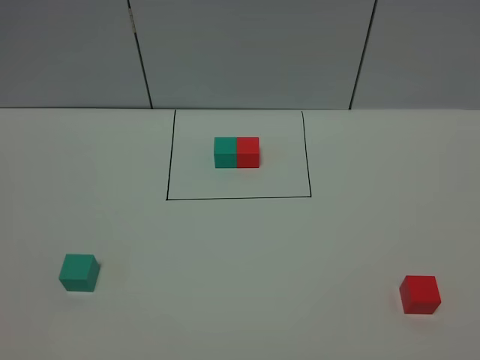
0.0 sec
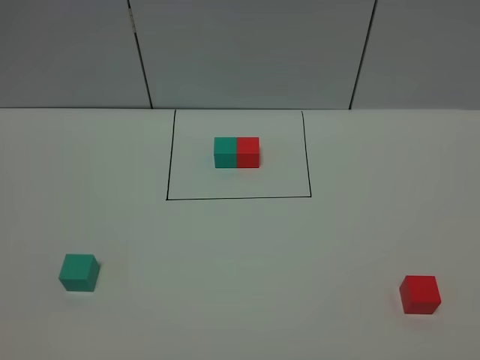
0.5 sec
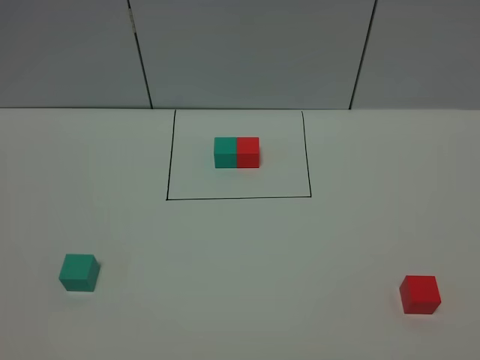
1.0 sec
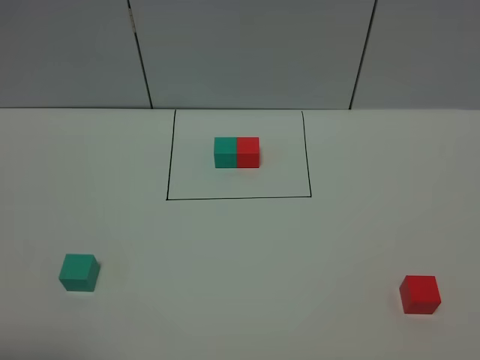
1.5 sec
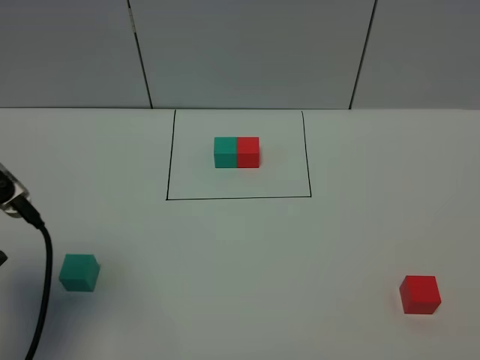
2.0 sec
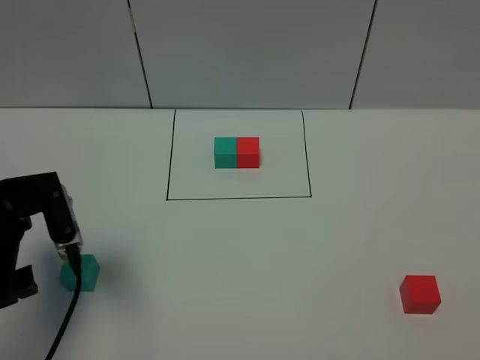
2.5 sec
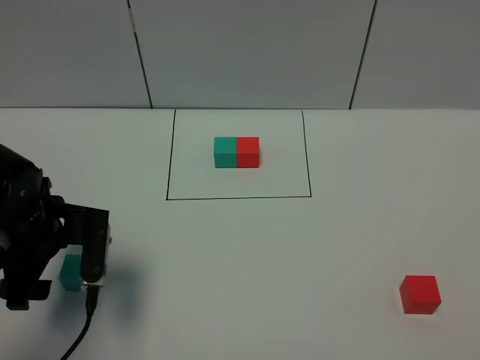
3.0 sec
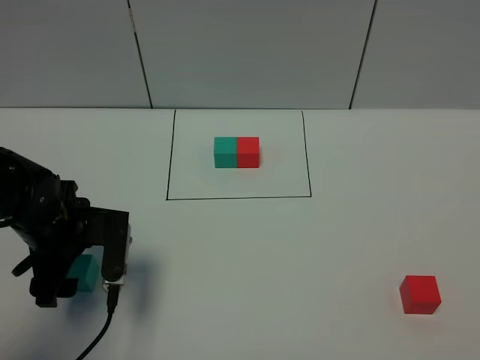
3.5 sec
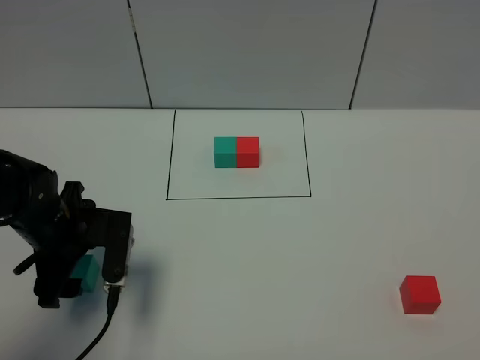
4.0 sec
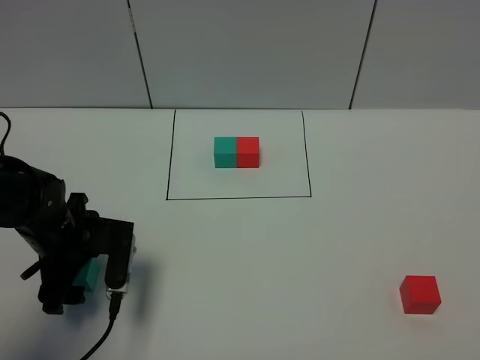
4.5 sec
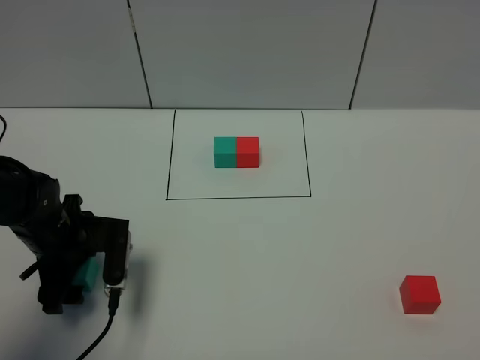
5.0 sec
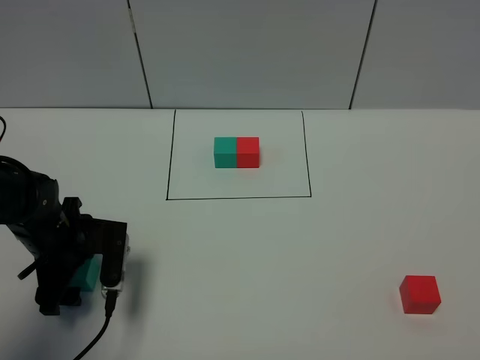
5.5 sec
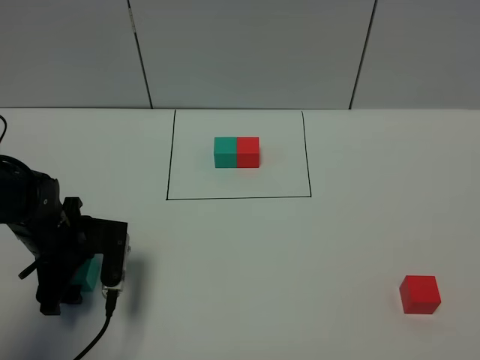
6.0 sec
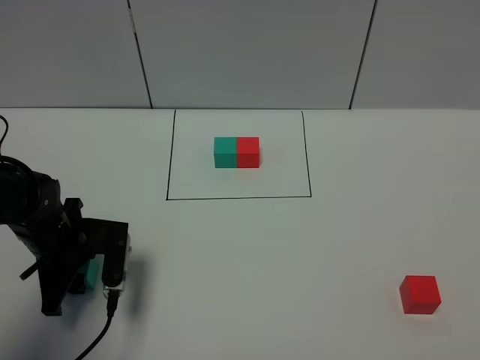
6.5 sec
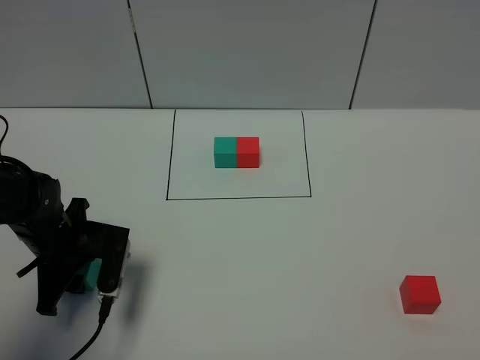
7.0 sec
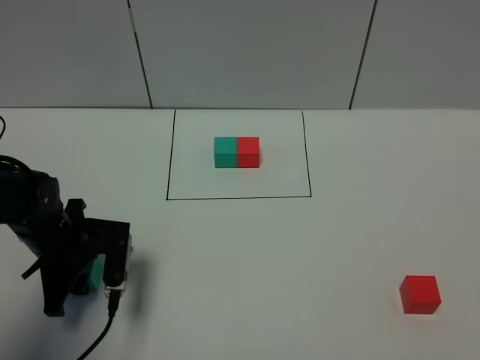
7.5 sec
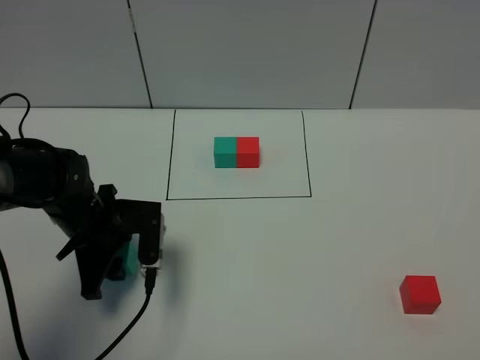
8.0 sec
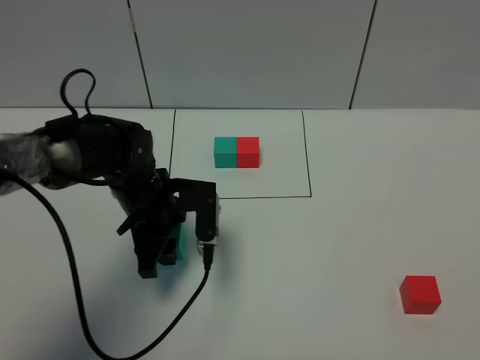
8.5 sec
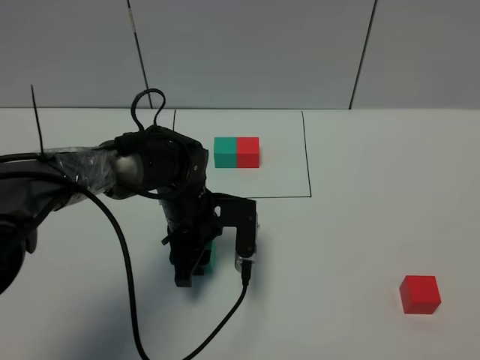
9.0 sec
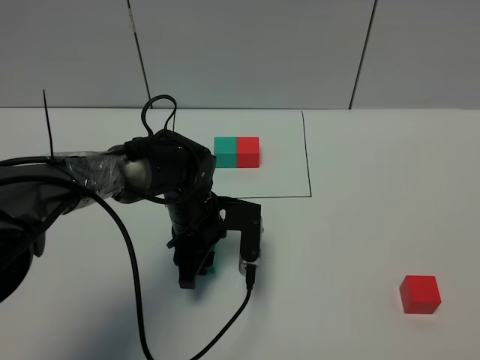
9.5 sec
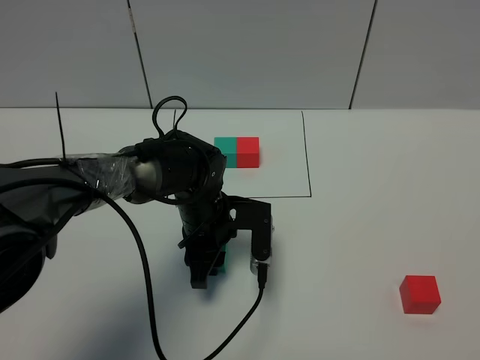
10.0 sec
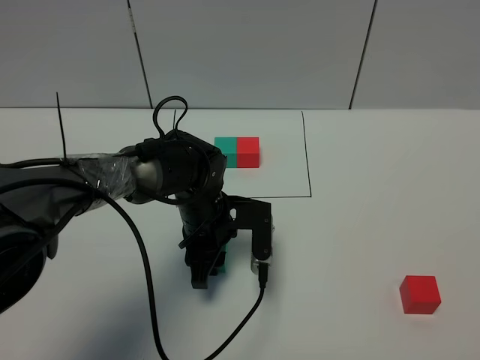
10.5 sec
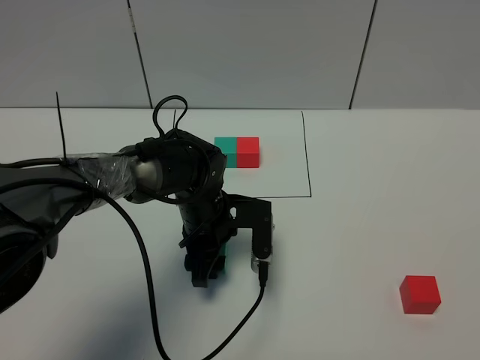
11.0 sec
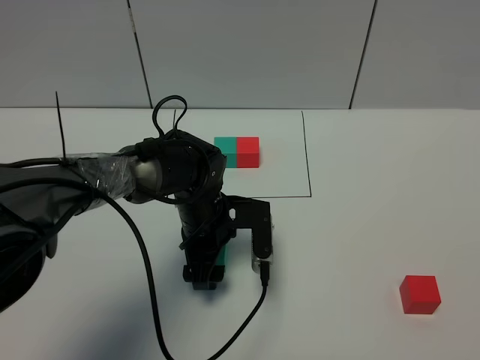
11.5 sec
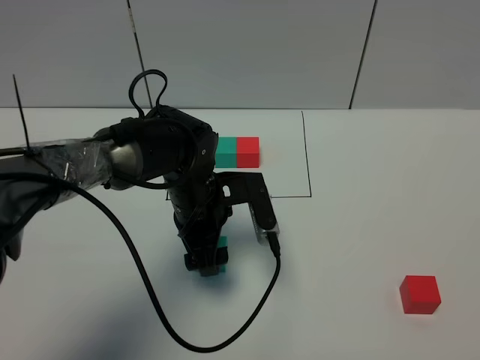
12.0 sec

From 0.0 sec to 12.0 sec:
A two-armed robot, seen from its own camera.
Task of the whole recording: According to the building block template in front, assemble the scattered blocks together.
Step, from 2.0 sec to 11.5 sec: Put the green cube in the center of the table.
From 0.0 sec to 2.0 sec: The left gripper is displaced forward by about 20 cm.
From 2.0 sec to 4.0 sec: The left gripper moves downward and forward, approximately 15 cm.
From 4.0 sec to 6.0 sec: The grippers make only small movements.
From 6.0 sec to 8.0 sec: The left gripper ends up about 5 cm from where it was, and closes up.
From 8.0 sec to 10.0 sec: The left gripper moves to the right, roughly 15 cm.
From 10.0 sec to 12.0 sec: The left gripper is displaced upward by roughly 5 cm, and opens up.

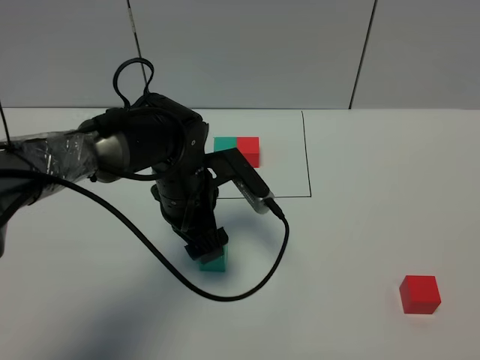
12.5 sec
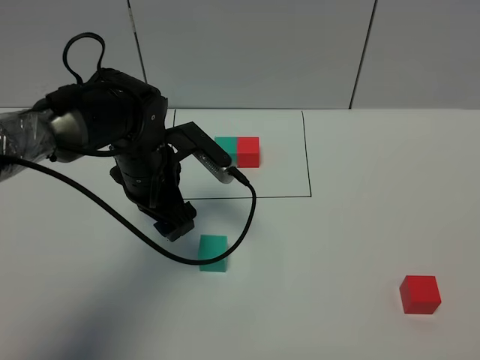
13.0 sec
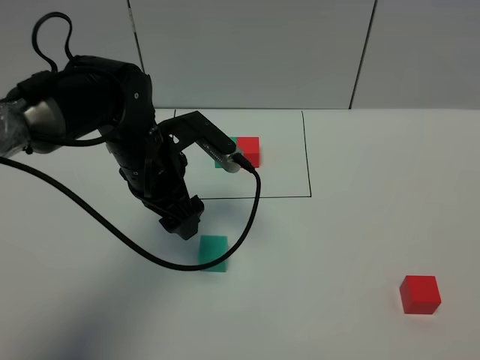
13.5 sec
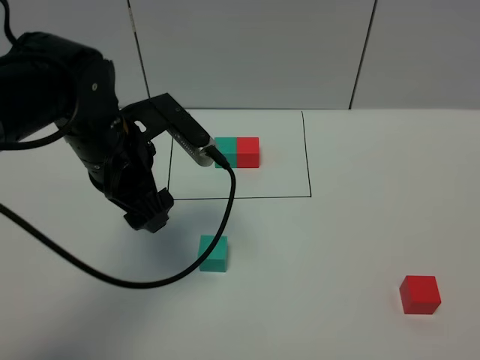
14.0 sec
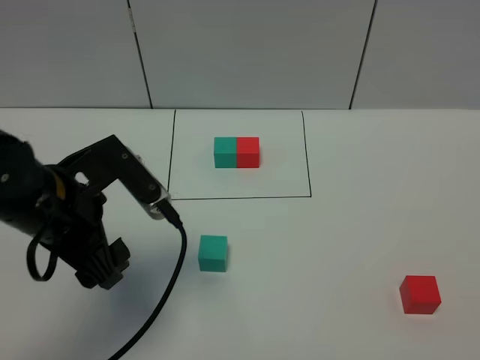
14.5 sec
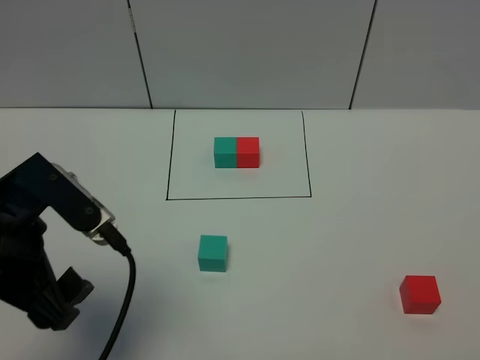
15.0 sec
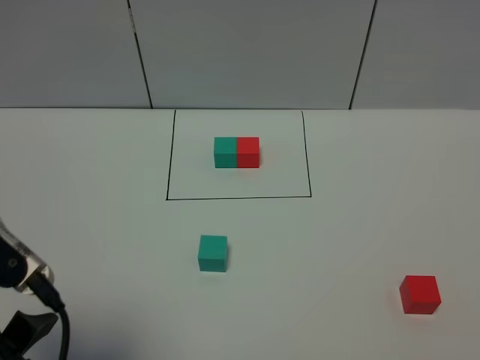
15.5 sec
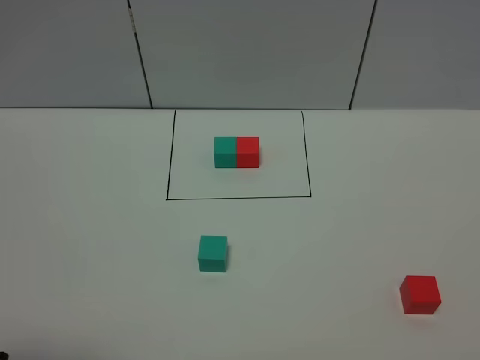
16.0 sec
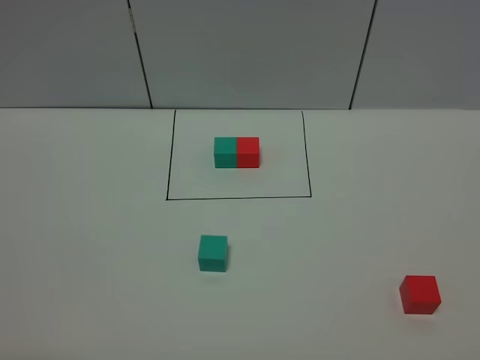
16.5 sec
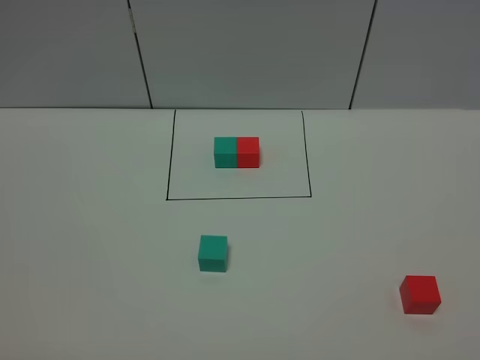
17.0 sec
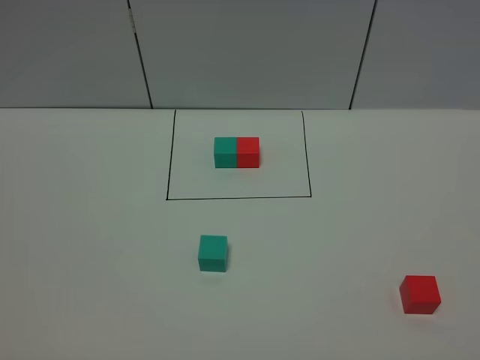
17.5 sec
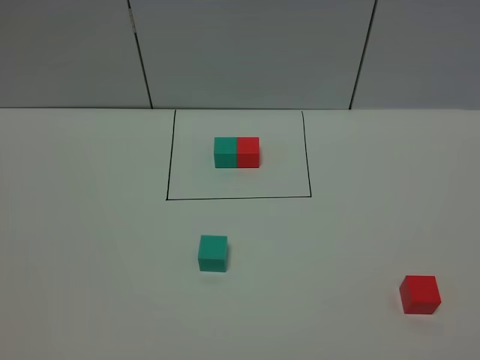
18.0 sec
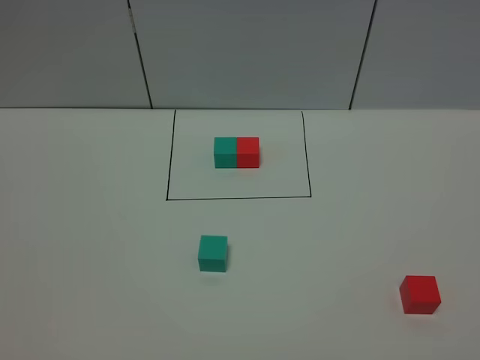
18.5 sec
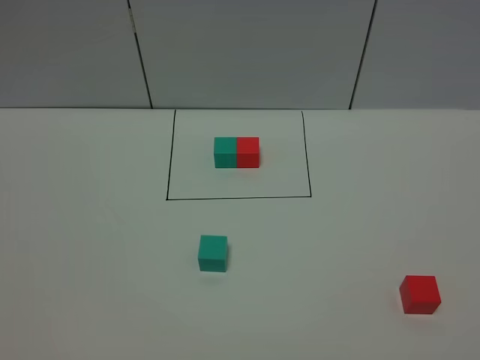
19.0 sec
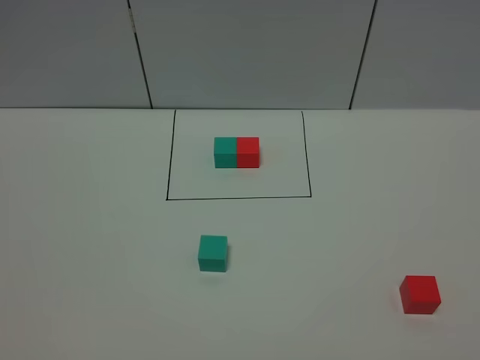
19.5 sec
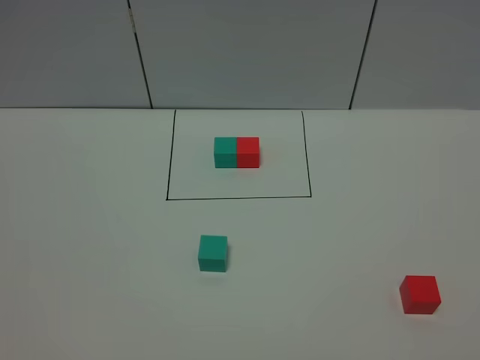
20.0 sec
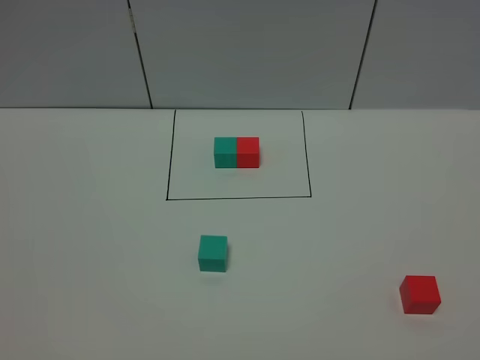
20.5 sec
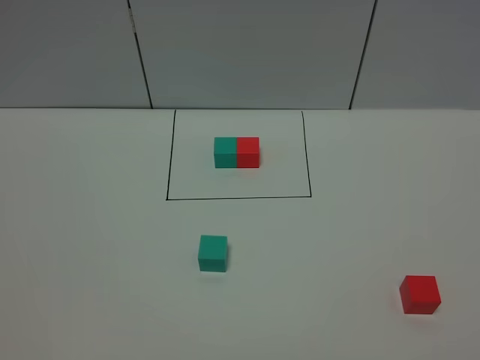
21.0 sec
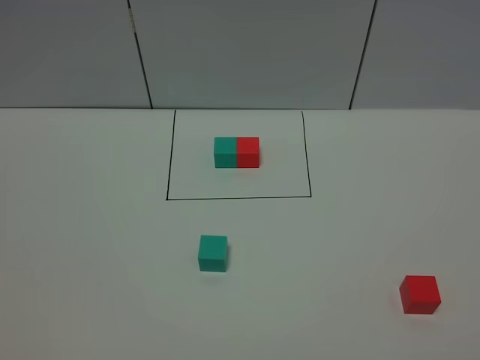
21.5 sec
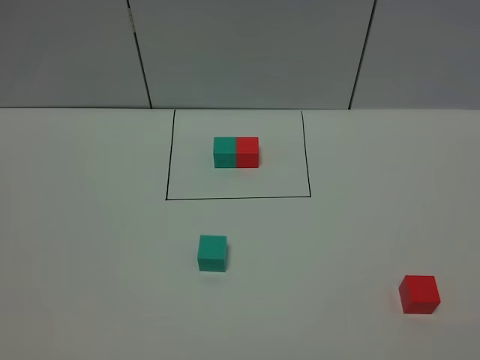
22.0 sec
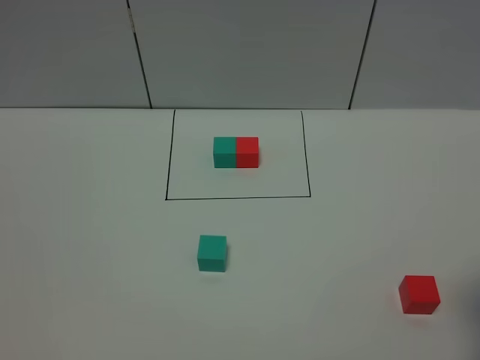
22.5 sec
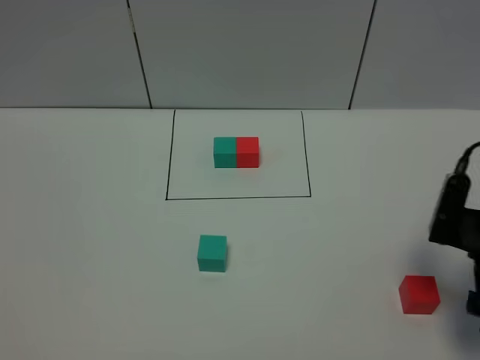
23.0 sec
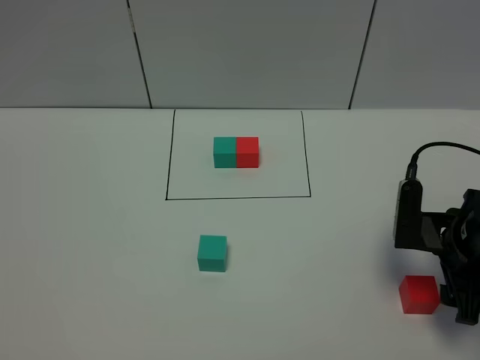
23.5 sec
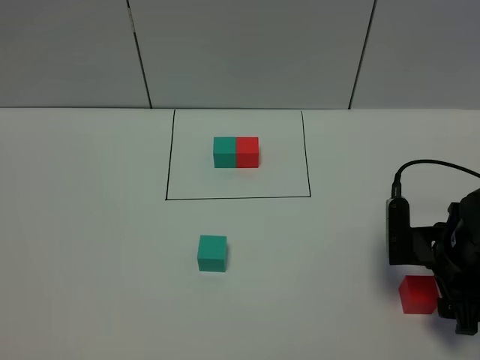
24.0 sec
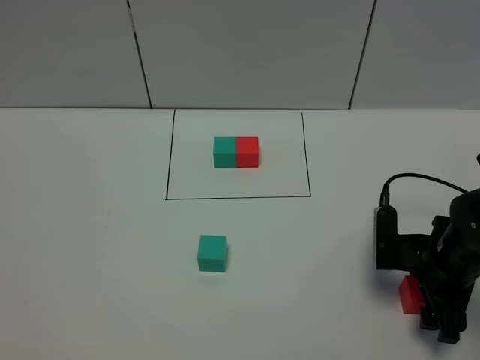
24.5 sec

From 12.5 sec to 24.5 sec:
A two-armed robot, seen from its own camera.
Task of the whole recording: According to the building block template in front, assemble the scattered blocks together.
From 12.5 sec to 14.5 sec: The left gripper shifts about 20 cm backward, to the left and upward.
From 14.5 sec to 16.5 sec: The left gripper heads backward and to the left, covering about 25 cm.
From 18.5 sec to 20.5 sec: The two grippers keep their place.
From 22.5 sec to 24.5 sec: The right gripper goes roughly 15 cm downward, forward and to the left.

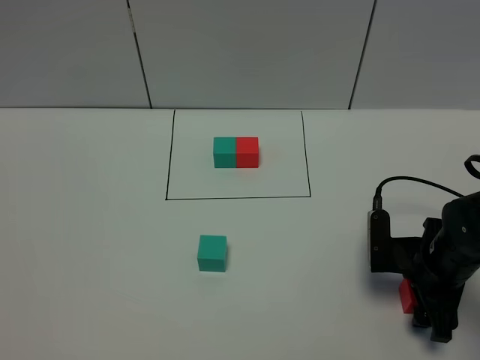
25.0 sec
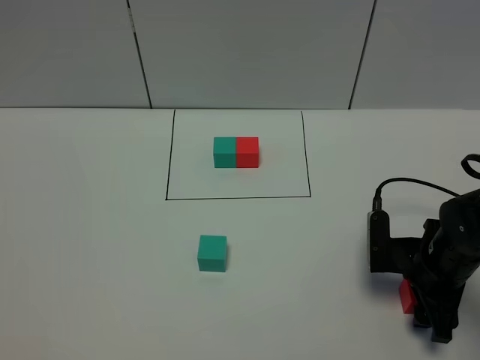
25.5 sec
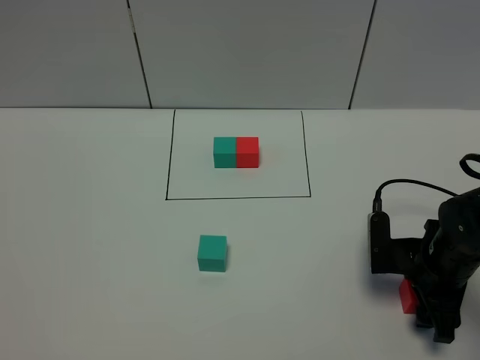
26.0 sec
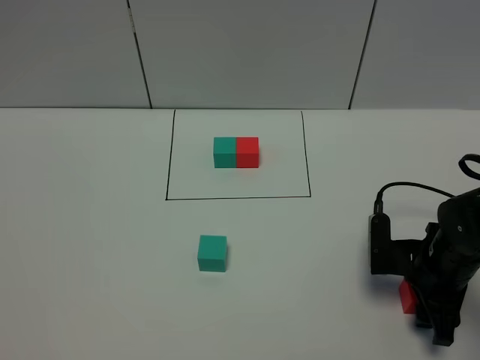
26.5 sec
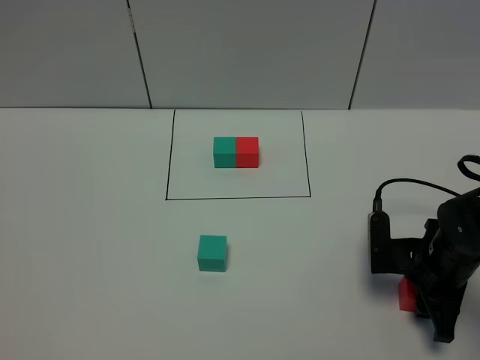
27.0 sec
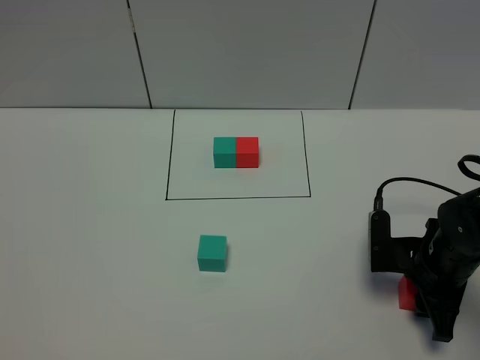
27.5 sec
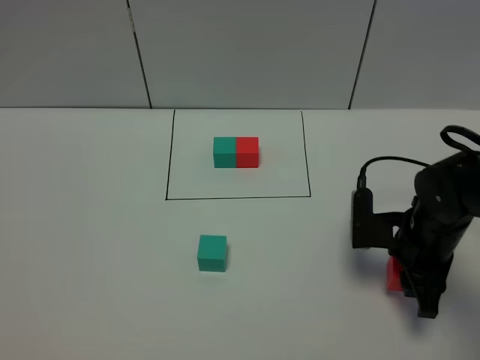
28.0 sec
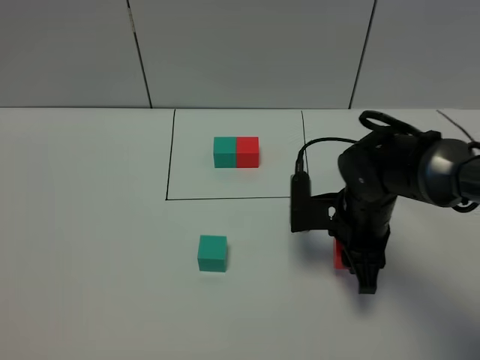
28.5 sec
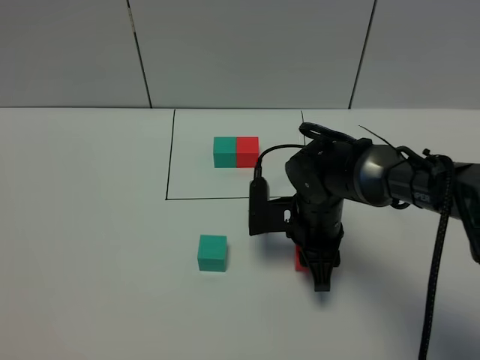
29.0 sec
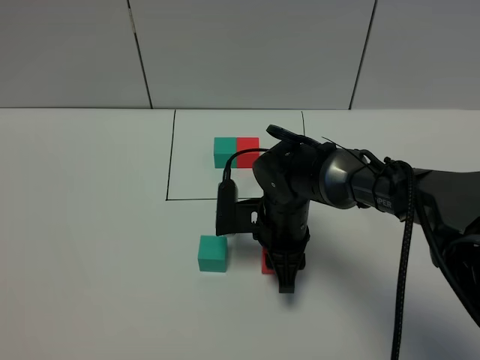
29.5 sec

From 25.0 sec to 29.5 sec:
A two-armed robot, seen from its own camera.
Task of the whole recording: According to the building block template in front, assemble the scattered blocks together.
From 25.0 sec to 27.0 sec: The right gripper closes its fingers.
From 27.0 sec to 29.5 sec: The right gripper shifts roughly 20 cm to the left.
